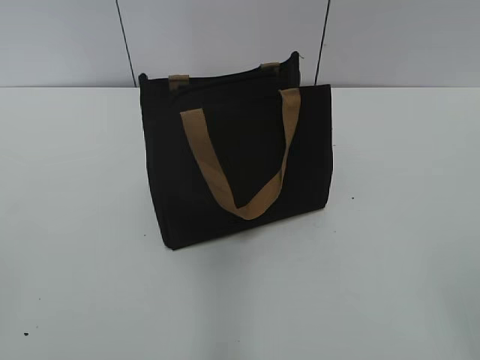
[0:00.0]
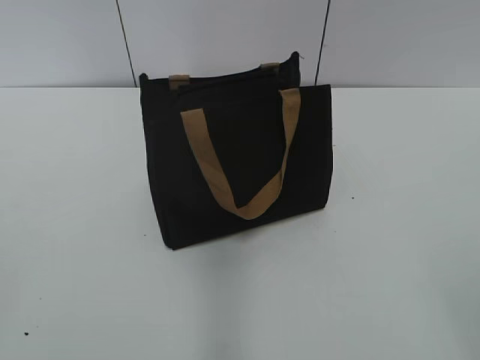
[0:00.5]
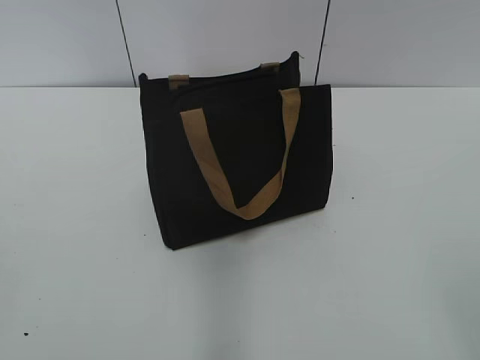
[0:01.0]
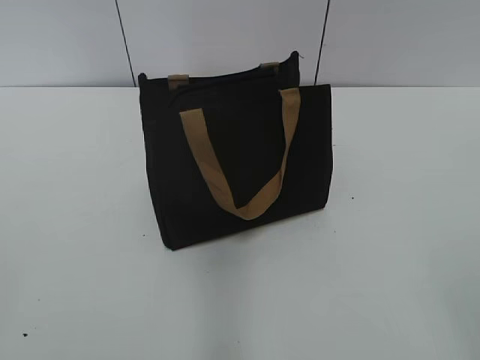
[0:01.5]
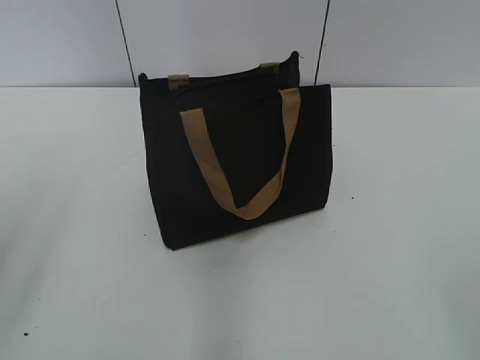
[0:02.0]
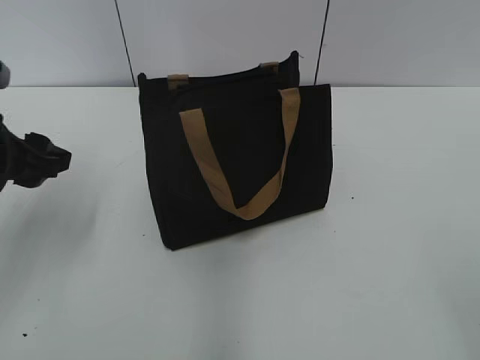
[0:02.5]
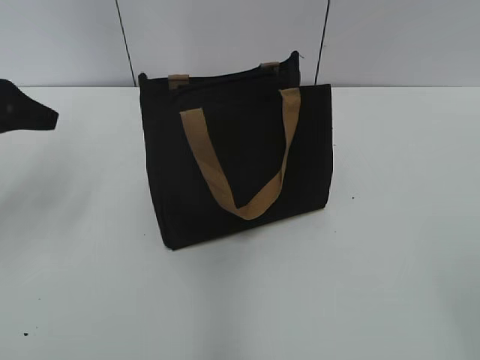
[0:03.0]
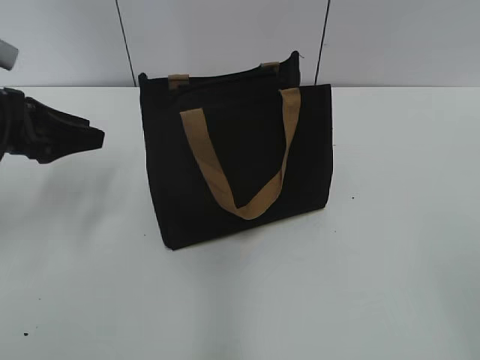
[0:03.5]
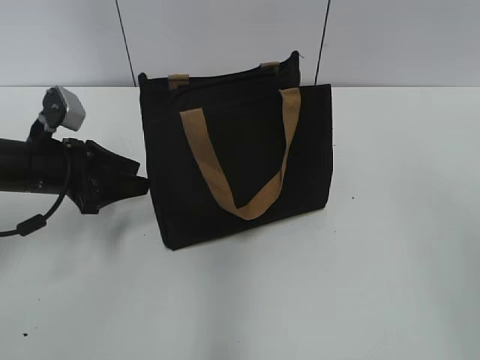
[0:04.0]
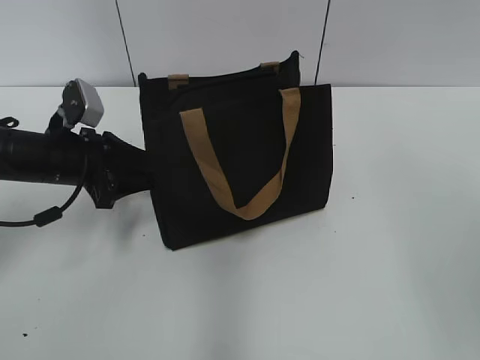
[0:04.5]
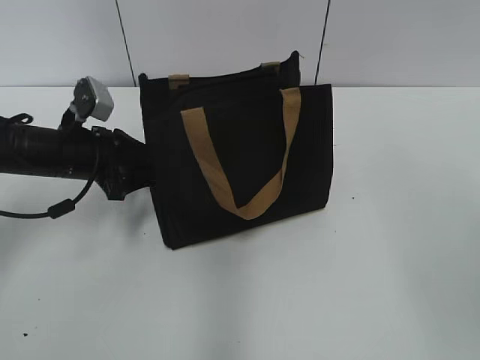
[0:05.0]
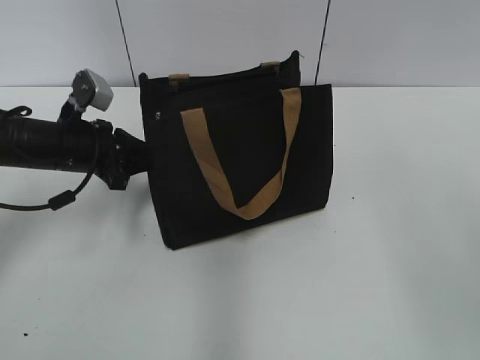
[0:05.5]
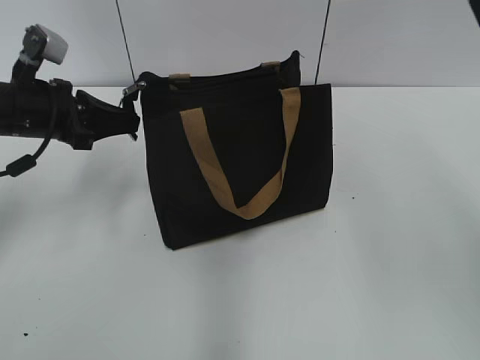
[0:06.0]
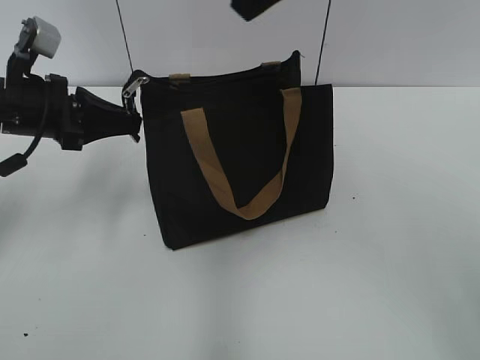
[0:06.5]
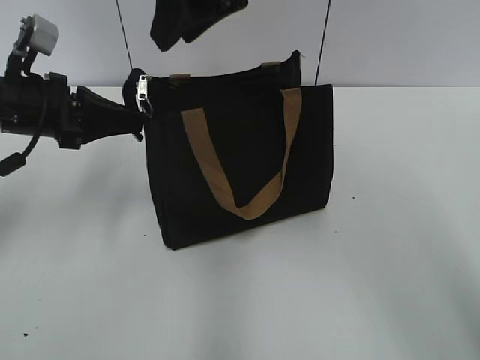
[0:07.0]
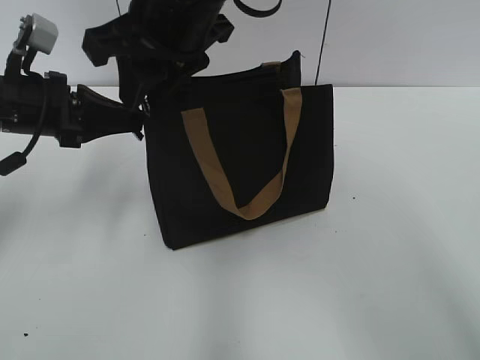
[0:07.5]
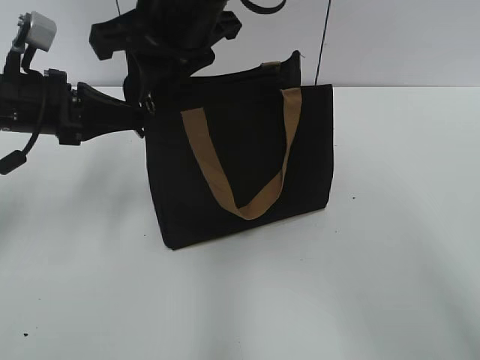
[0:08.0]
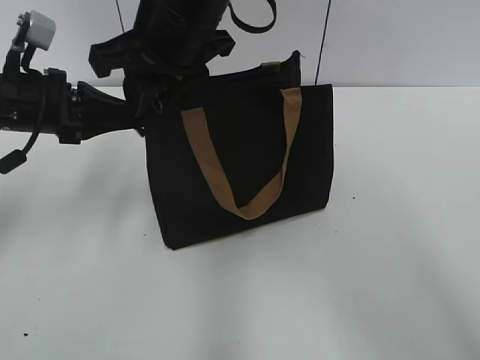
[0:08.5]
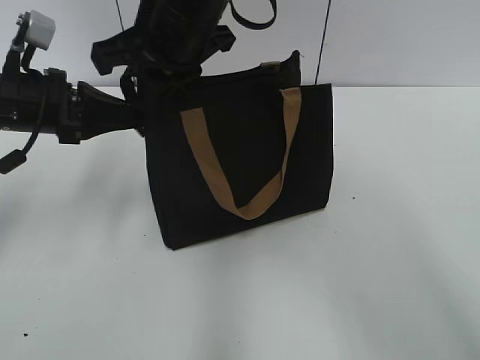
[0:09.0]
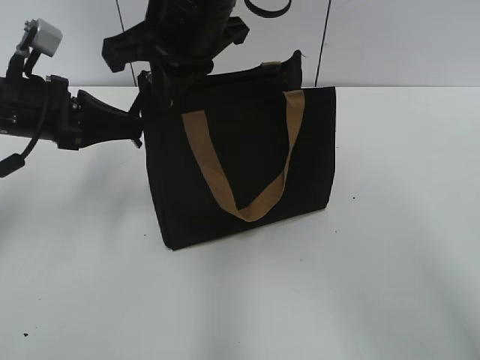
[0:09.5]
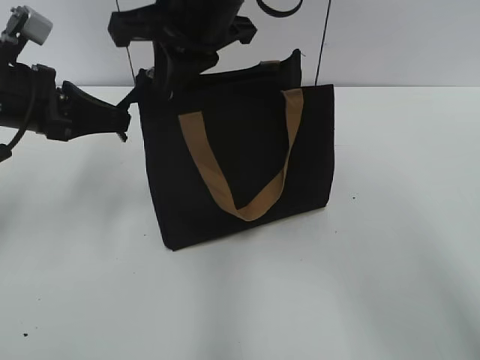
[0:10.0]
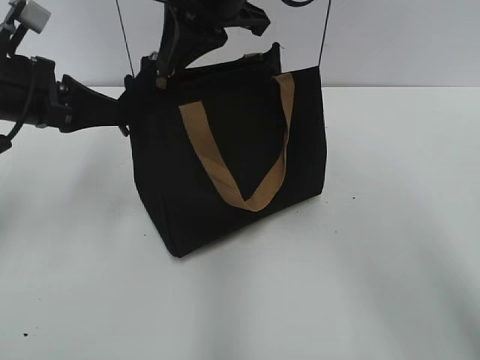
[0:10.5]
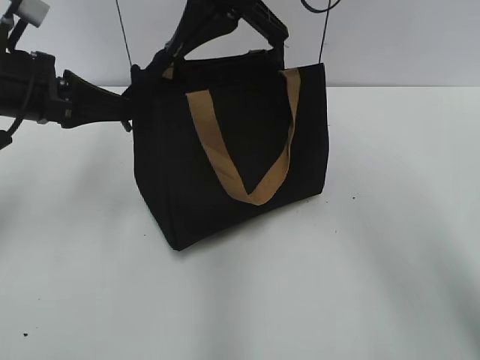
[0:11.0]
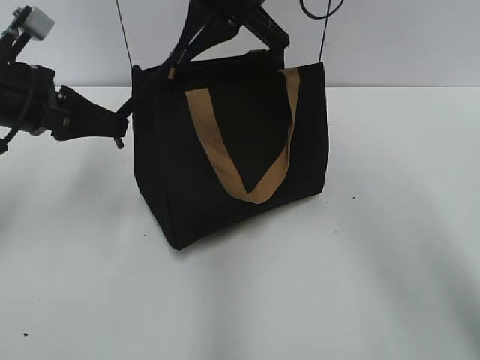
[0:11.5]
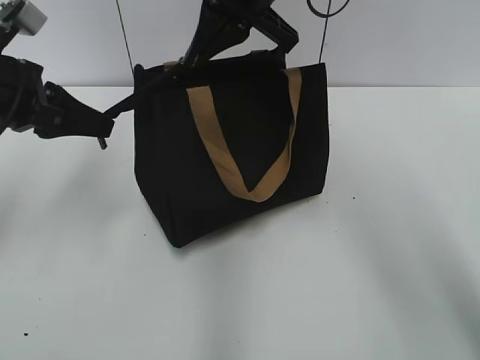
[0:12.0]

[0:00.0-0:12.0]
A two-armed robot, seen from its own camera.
2.0 to 4.0 s: The left gripper moves forward and downward, some 30 cm.
4.0 to 6.0 s: The left gripper is displaced upward by roughly 5 cm, and closes its fingers.
6.0 to 8.0 s: The right gripper heads to the left, forward and downward, covering approximately 30 cm.
8.0 to 10.0 s: The right gripper closes its fingers.
10.0 to 12.0 s: The right gripper shifts approximately 5 cm to the right.

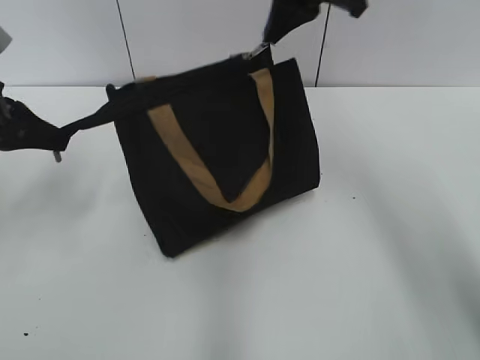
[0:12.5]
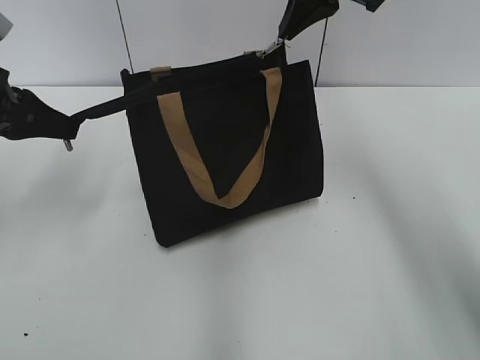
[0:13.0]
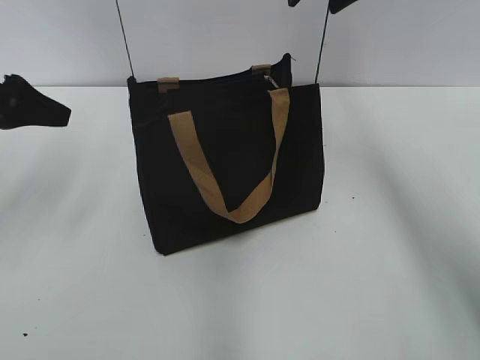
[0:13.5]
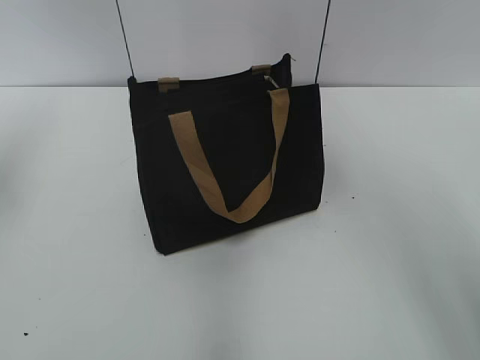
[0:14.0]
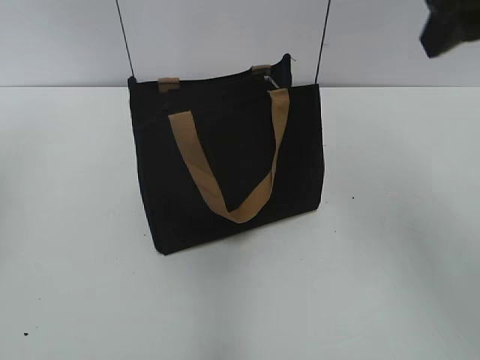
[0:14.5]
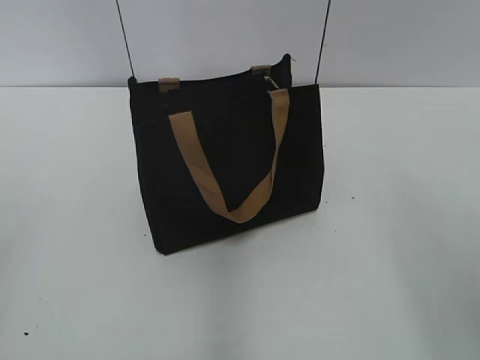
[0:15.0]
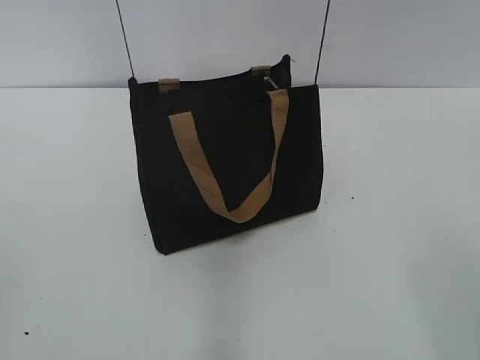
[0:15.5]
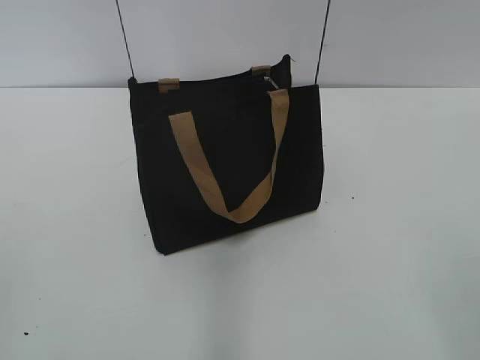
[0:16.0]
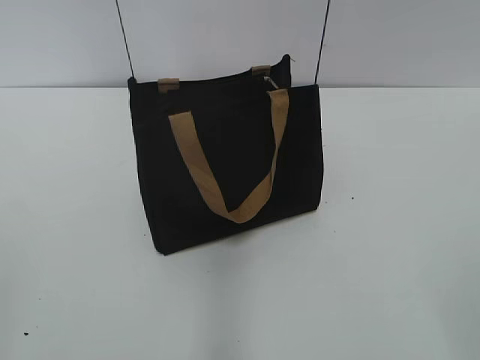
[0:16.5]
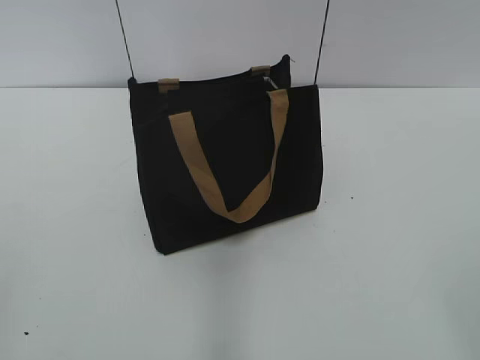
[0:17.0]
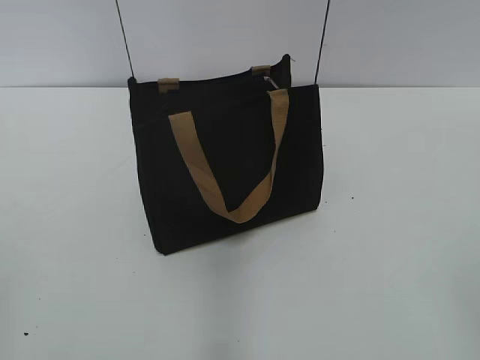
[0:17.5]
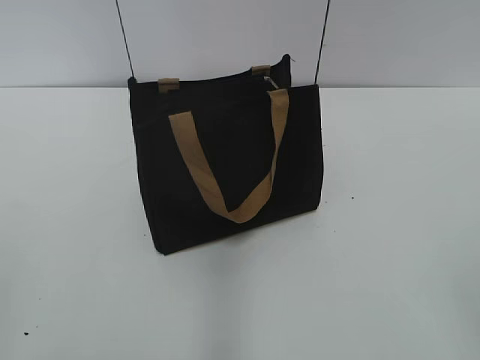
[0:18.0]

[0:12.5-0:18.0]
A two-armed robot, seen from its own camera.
12.5 to 14.5 s: The right gripper is displaced backward and to the right by about 20 cm, and opens its fingers, while the left gripper travels upward and backward by some 15 cm, and opens its fingers.
14.5 to 16.0 s: The right gripper moves backward and downward, approximately 25 cm.

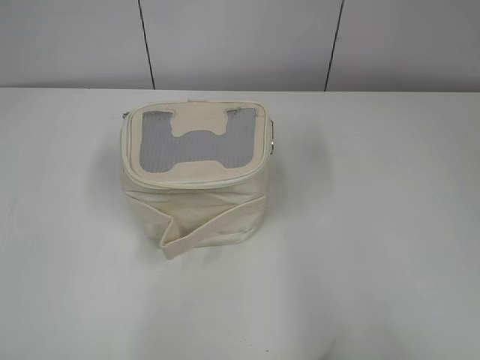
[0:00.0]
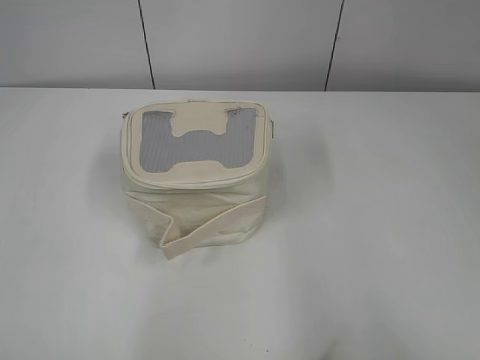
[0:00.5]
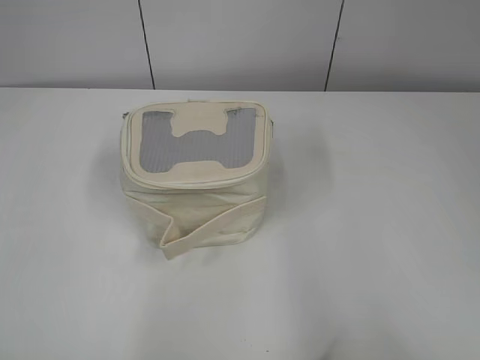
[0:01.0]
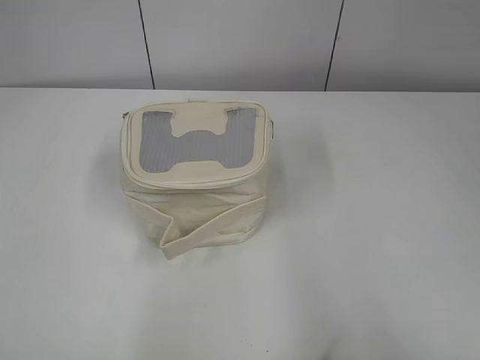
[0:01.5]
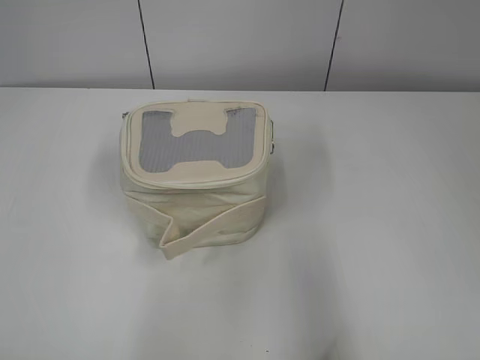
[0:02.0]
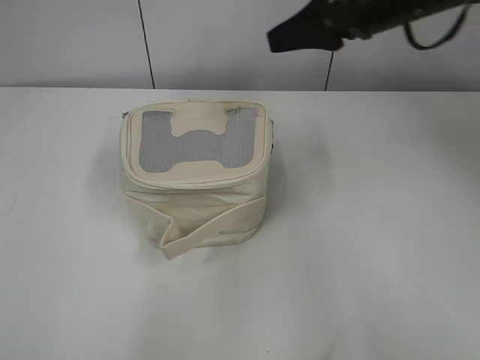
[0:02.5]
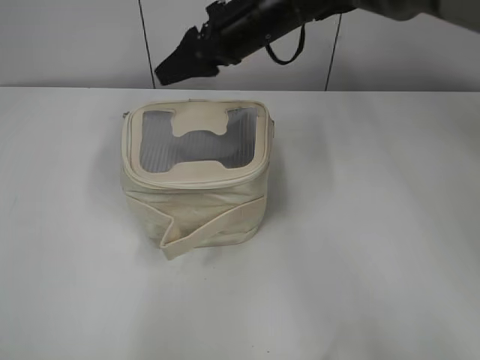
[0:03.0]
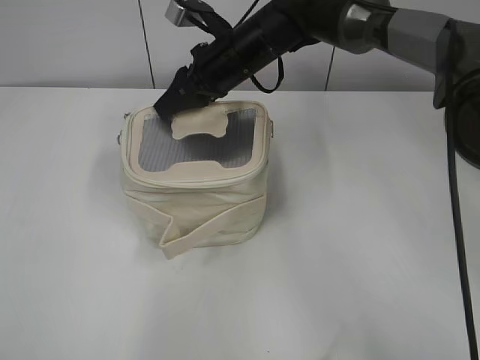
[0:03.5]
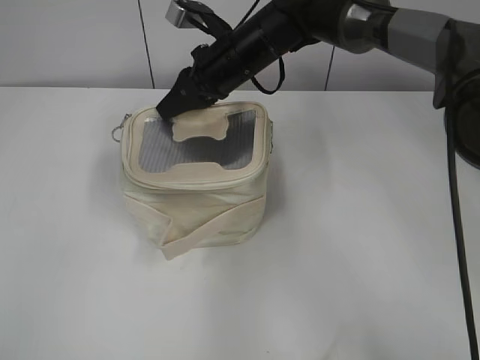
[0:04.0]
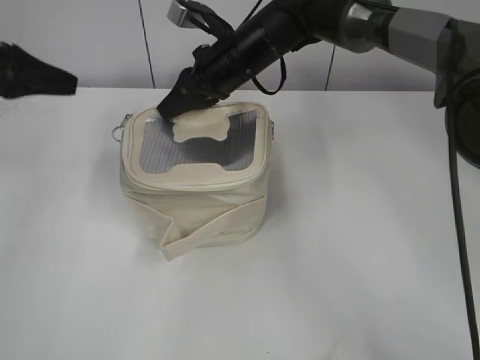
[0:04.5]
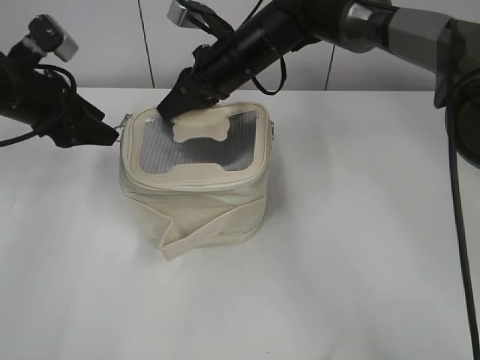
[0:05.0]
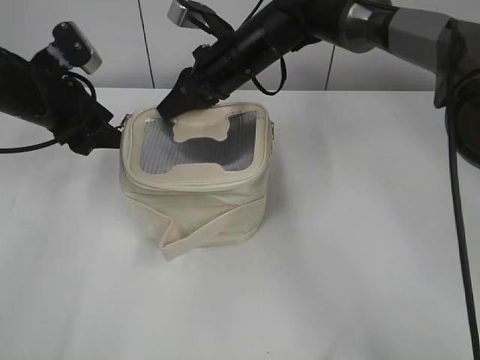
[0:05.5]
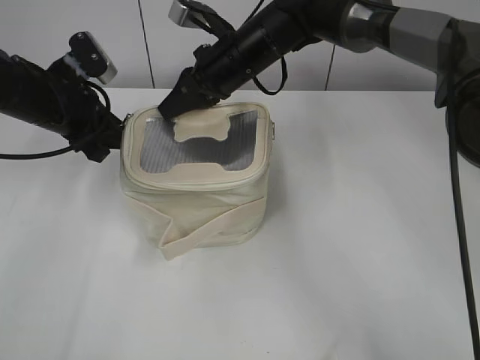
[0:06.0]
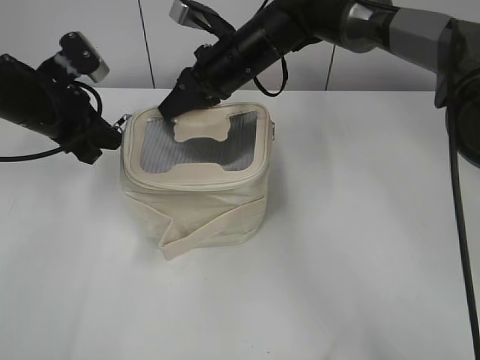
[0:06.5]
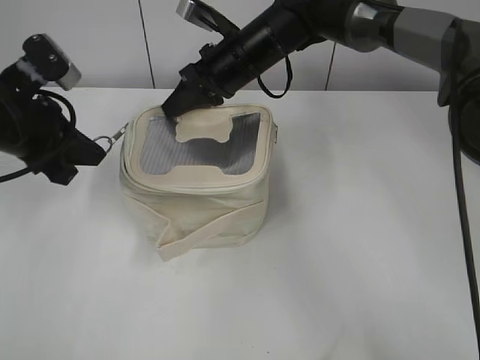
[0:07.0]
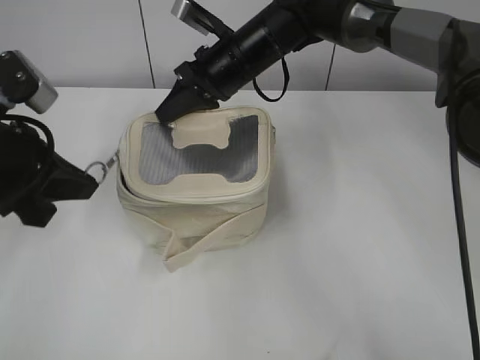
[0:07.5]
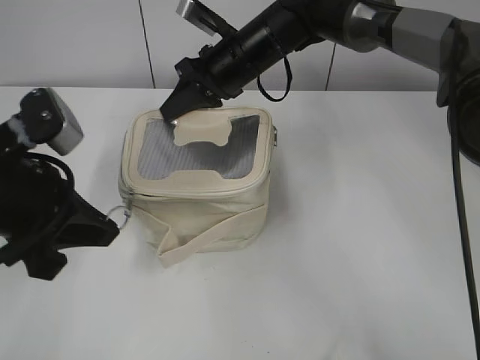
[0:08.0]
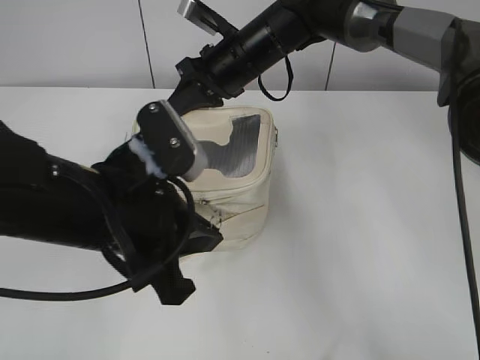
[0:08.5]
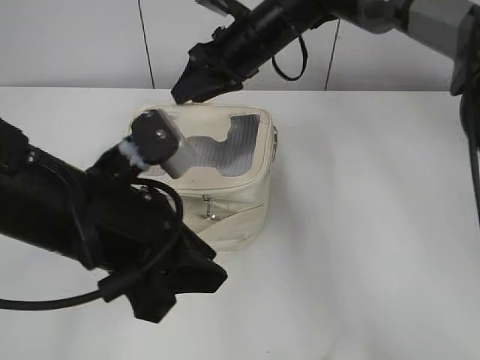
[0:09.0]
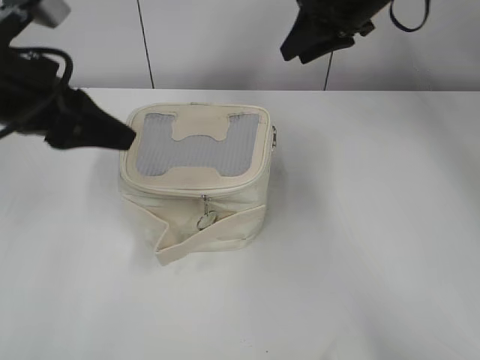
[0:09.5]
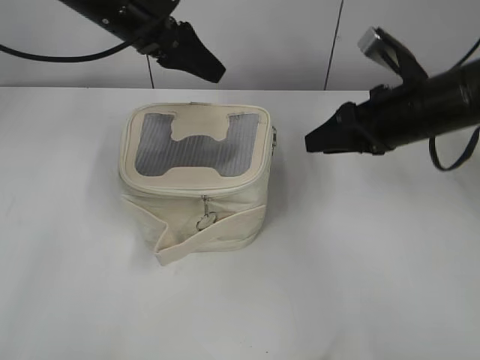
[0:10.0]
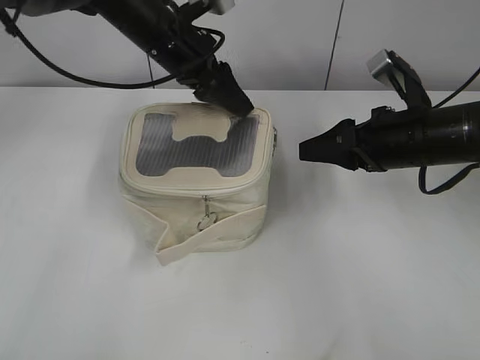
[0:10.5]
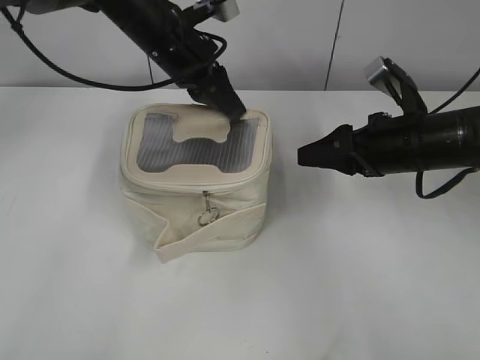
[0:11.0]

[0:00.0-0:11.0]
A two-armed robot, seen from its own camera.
Step, 0.0 to 8.5 s: Zip up the bag with your left hand.
2.0 to 3.5 s: The right gripper is displaced forward and to the left by roughly 50 cm, and closes.
3.5 to 5.5 s: The left gripper travels forward by roughly 35 cm, and opens. The right gripper closes its fingers.
5.5 to 7.5 s: The left gripper goes about 15 cm backward, and closes its fingers.
7.5 to 9.0 s: The left gripper travels to the right and backward by roughly 15 cm, and opens; the right gripper opens up.
9.0 to 11.0 s: The right gripper goes about 25 cm to the right and backward, while the left gripper goes about 25 cm forward, and opens, then closes again.
